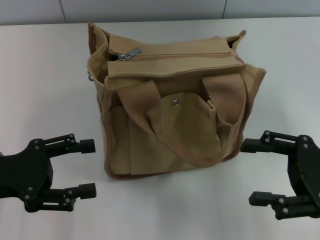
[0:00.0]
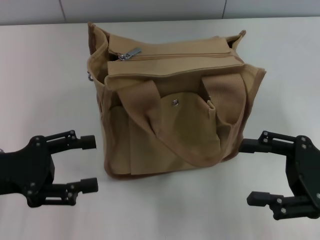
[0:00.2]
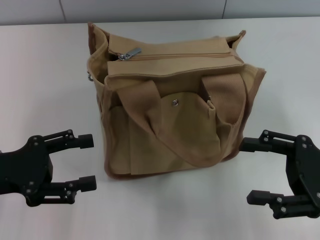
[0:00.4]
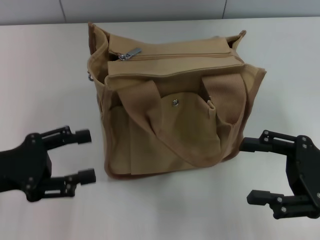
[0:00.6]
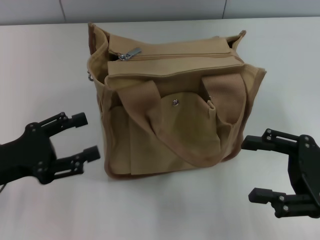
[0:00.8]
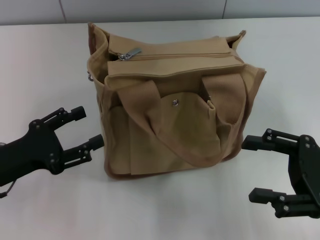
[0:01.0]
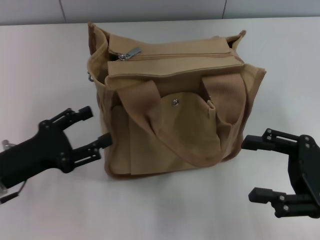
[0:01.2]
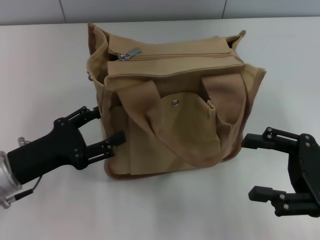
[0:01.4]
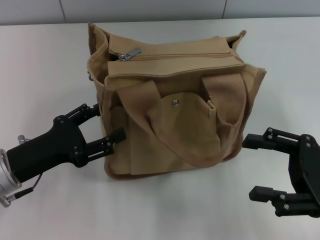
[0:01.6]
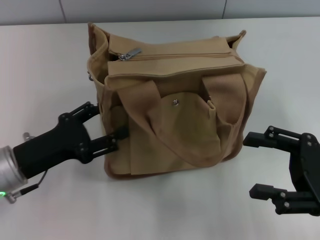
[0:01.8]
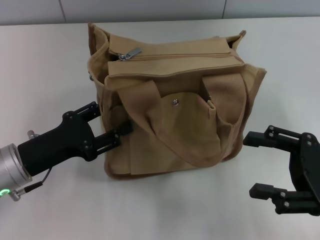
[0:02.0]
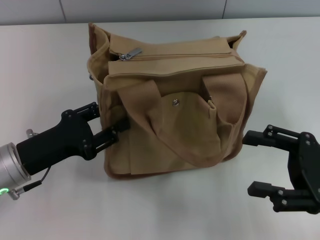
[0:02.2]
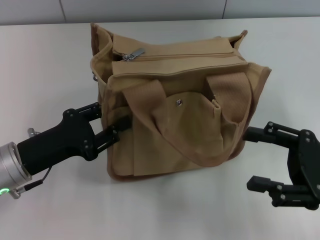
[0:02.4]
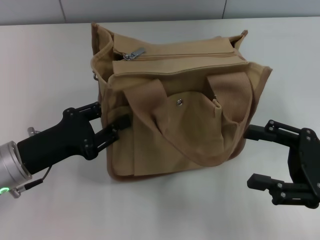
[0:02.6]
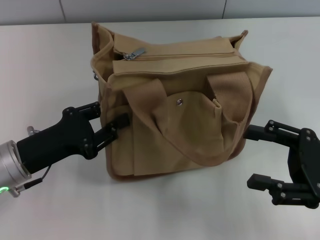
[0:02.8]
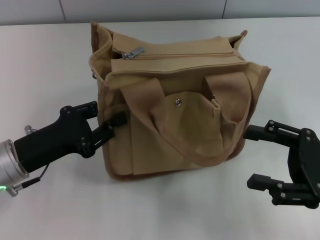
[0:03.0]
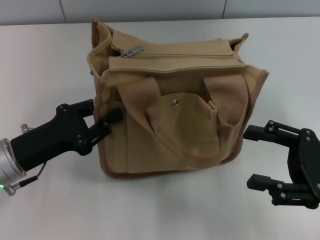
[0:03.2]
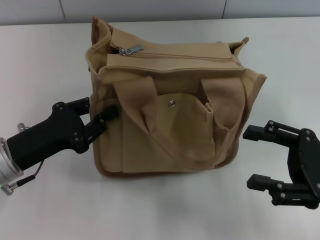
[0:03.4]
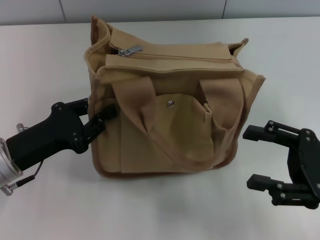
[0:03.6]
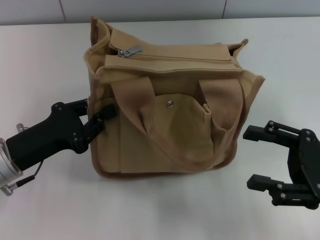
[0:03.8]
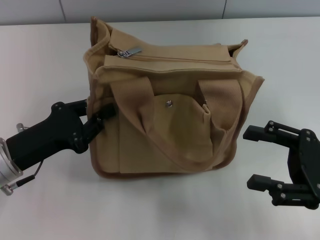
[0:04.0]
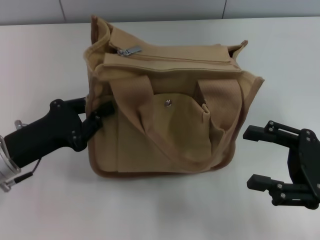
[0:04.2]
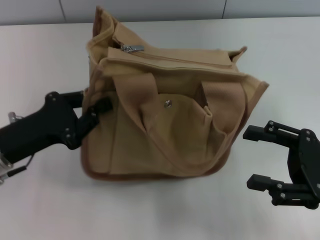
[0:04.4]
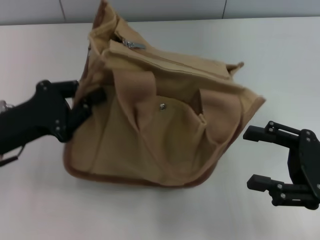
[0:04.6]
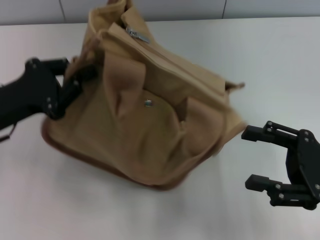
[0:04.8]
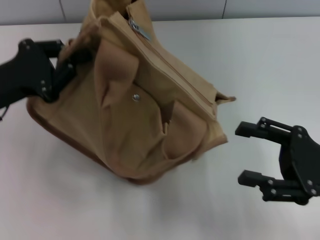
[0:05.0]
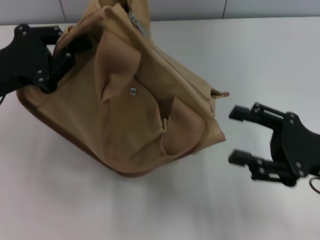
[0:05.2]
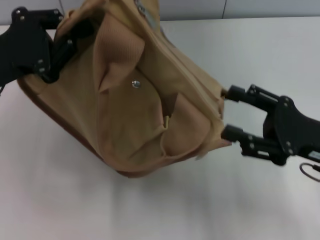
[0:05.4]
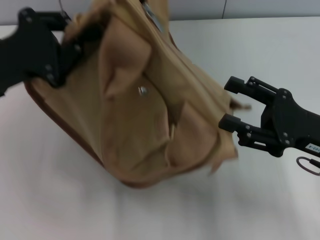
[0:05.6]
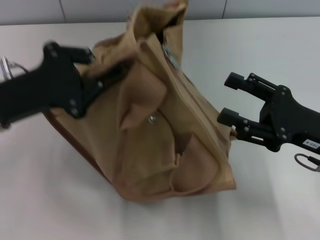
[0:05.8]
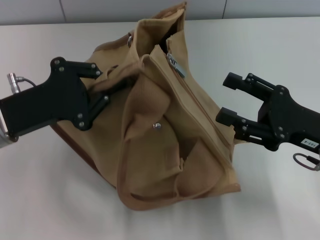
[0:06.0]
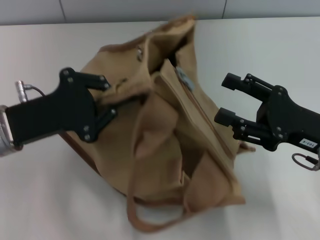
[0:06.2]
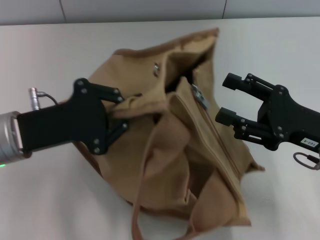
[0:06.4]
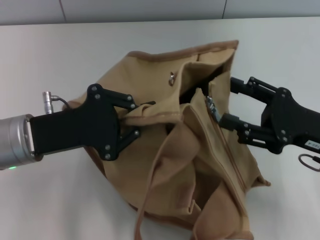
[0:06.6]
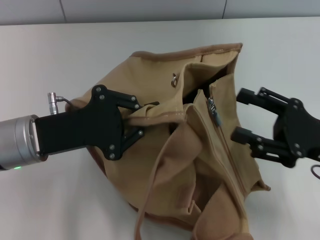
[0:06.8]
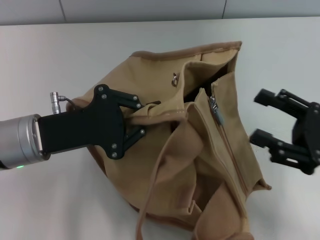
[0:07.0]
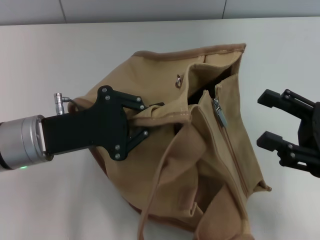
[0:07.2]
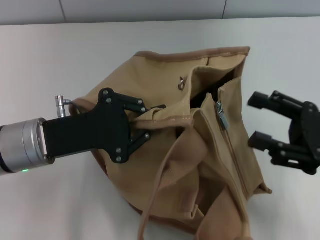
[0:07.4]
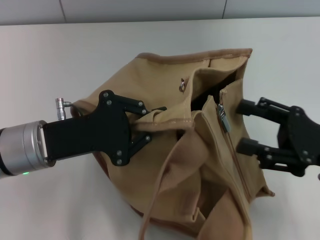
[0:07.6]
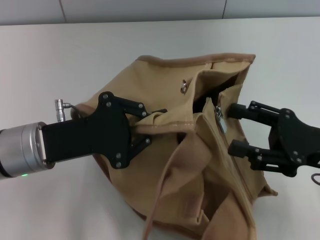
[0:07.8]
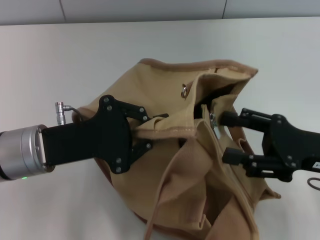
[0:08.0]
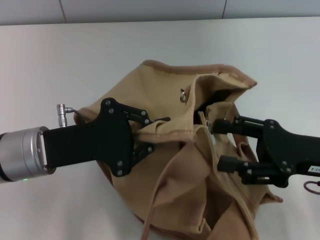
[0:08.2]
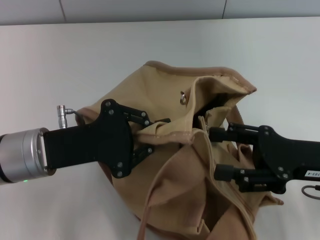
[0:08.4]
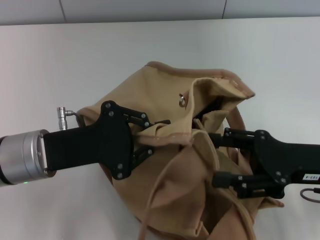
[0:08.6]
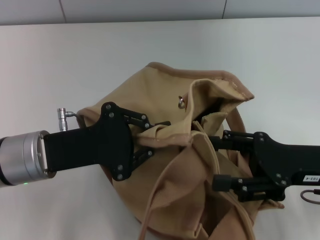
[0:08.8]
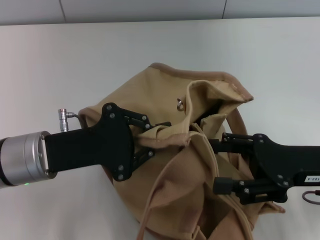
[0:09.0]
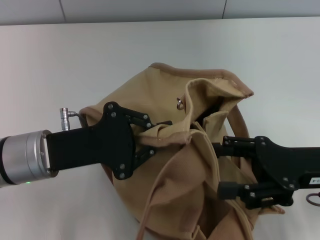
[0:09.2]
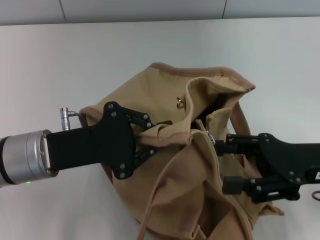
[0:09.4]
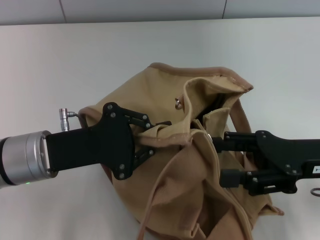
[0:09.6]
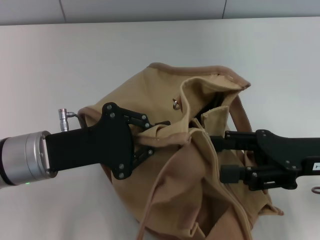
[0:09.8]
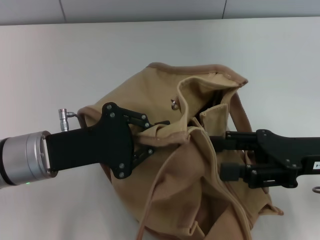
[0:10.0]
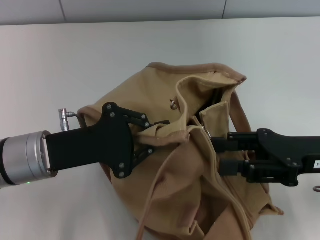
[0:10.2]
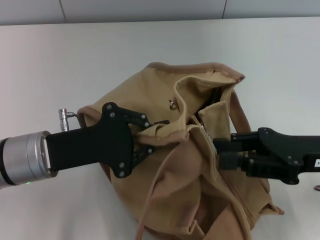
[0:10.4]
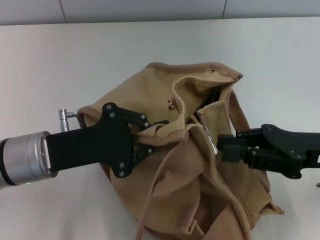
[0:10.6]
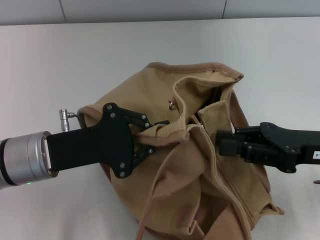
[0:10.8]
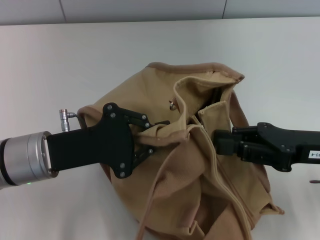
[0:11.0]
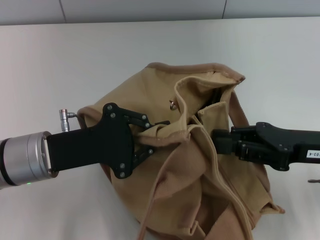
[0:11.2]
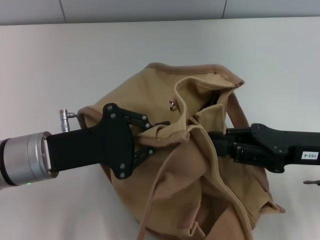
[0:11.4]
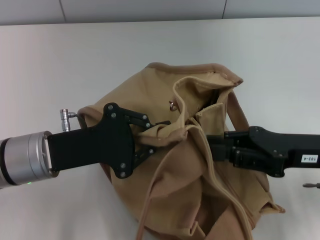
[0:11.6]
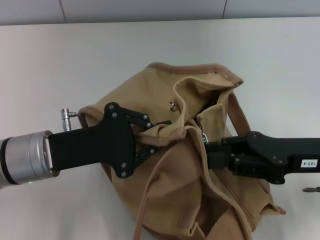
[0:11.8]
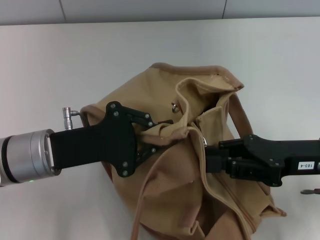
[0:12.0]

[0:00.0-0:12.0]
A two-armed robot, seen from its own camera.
0:00.0 to 0:01.6: The left gripper moves approximately 5 cm.
0:01.6 to 0:03.0: The left gripper closes.
0:03.0 to 0:04.4: The grippers make only small movements.
0:04.4 to 0:06.0: The right gripper changes place by approximately 5 cm.
0:09.0 to 0:10.4: There are only small adjustments of the grippers.
0:10.4 to 0:12.0: The right gripper closes up.

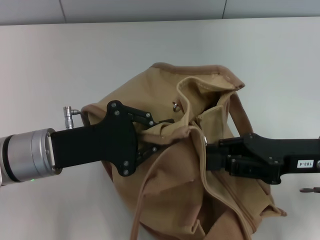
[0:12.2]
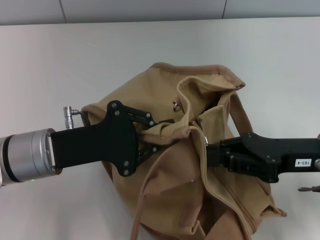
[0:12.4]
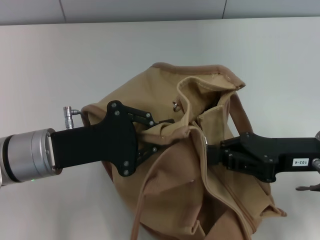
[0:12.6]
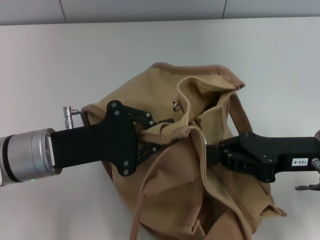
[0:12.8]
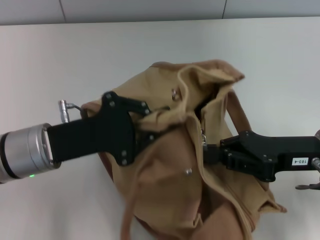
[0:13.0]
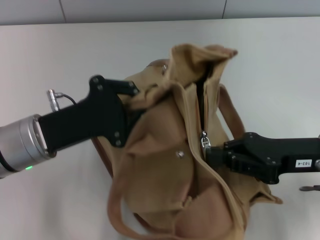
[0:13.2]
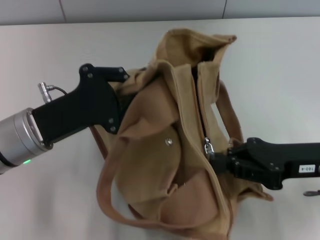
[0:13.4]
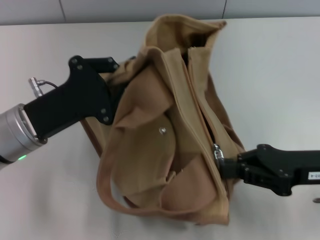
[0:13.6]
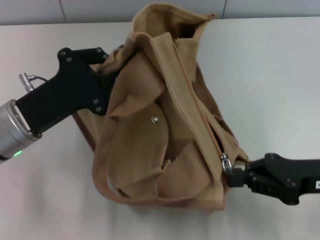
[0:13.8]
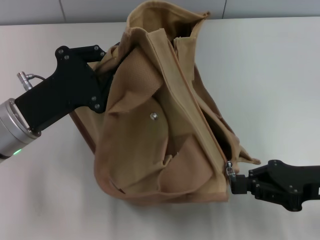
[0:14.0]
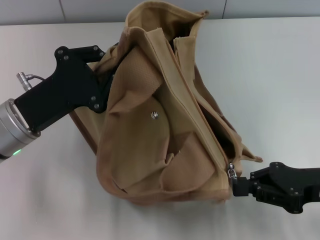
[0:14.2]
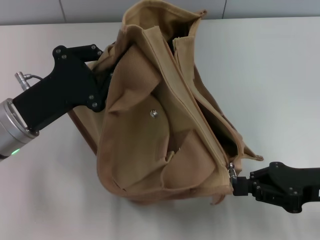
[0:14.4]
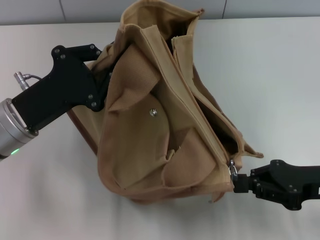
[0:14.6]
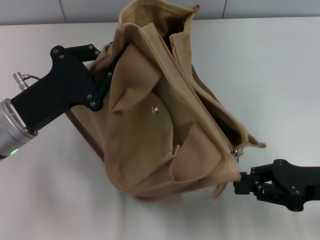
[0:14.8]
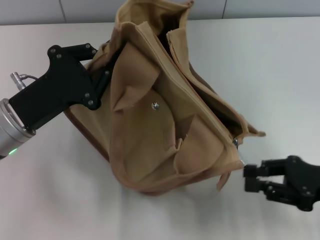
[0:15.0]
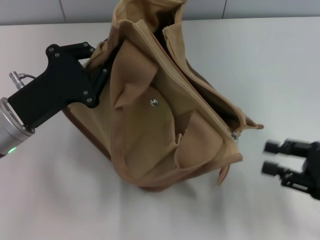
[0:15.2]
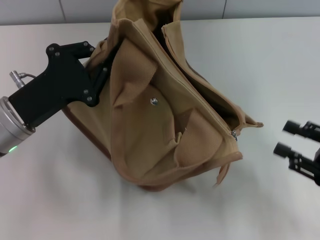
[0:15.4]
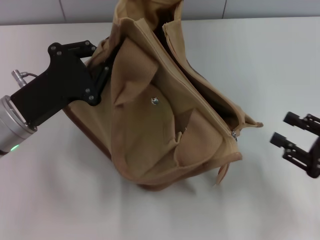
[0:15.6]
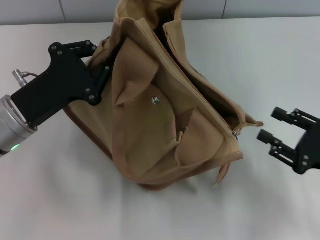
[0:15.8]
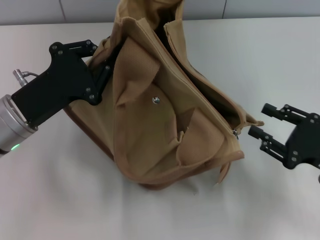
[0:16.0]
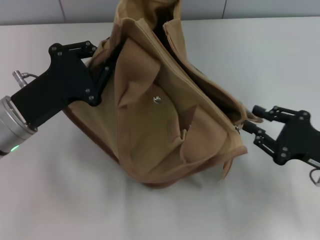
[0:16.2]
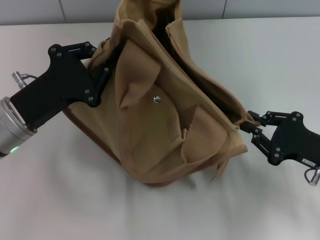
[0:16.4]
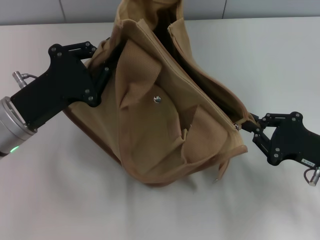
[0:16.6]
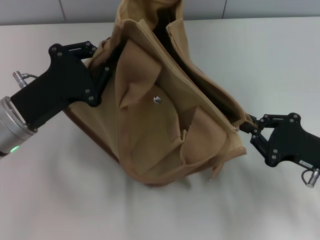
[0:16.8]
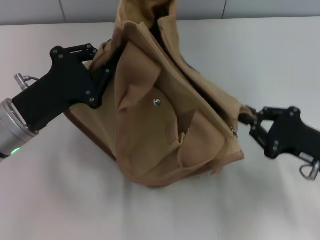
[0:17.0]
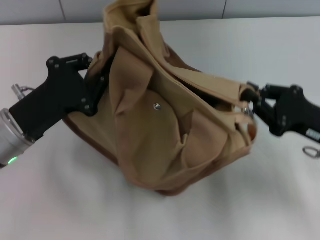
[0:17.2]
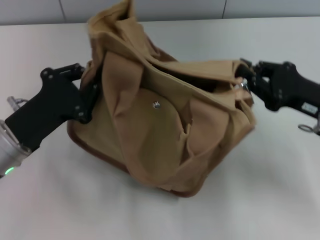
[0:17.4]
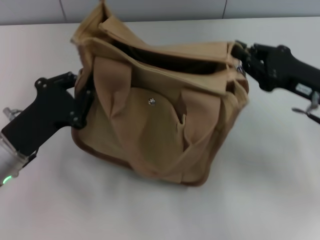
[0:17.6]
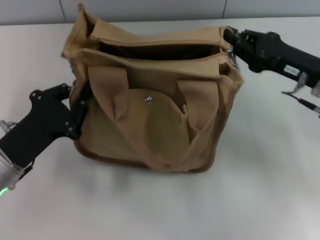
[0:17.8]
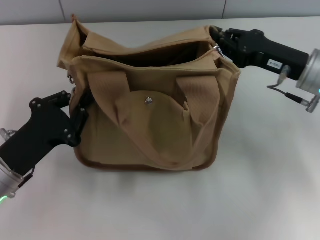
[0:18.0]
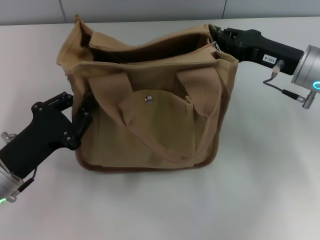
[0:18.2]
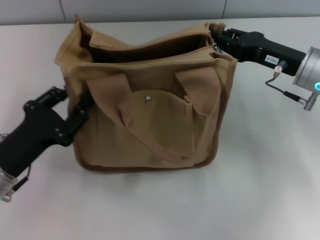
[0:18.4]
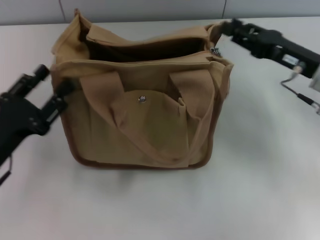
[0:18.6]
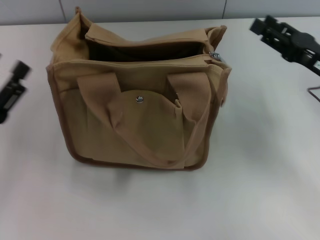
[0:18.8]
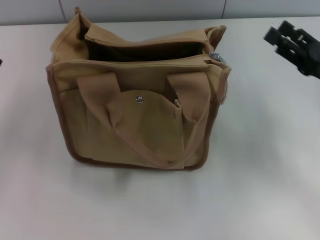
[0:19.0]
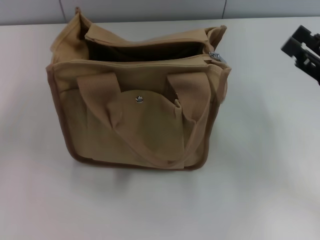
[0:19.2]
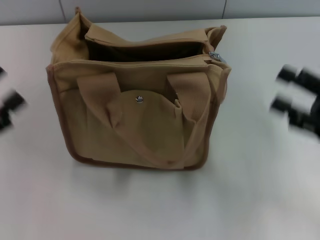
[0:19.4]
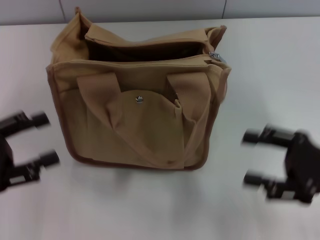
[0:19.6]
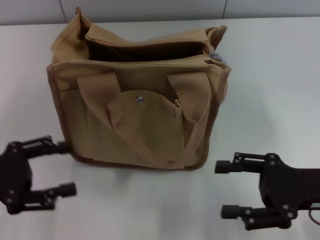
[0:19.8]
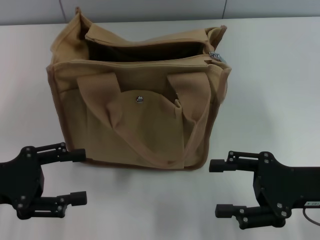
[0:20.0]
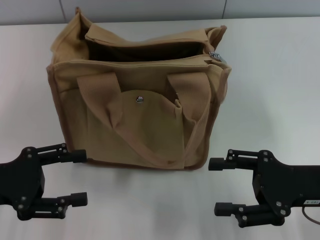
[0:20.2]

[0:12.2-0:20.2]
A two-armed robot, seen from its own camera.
Step, 0:12.2 to 0:15.0: Pull open the zipper with your right hand.
Step, 0:15.2 to 0:18.6: Grab the bag with your left hand.
0:13.8 to 0:15.4: The right gripper is displaced to the right by about 5 cm, and opens its fingers.
0:15.4 to 0:17.0: The right gripper moves to the left, about 5 cm, and closes its fingers.
0:17.0 to 0:18.6: The left gripper shifts about 5 cm backward, and opens its fingers, while the right gripper shifts approximately 10 cm forward and upward.
0:18.6 to 0:20.2: The right gripper travels backward by some 10 cm, and opens its fingers, while the left gripper changes place by roughly 5 cm, and opens.

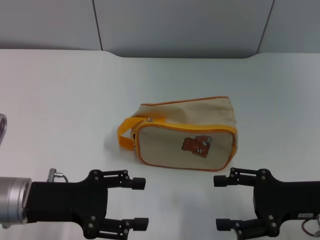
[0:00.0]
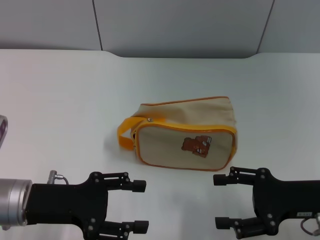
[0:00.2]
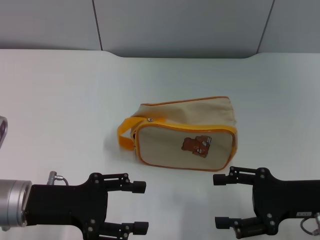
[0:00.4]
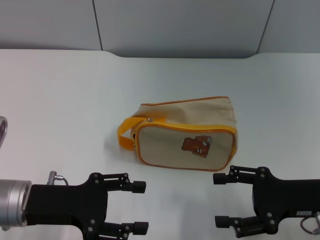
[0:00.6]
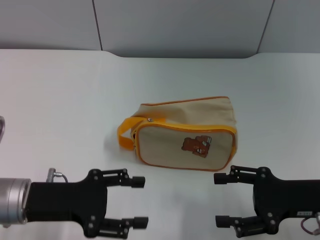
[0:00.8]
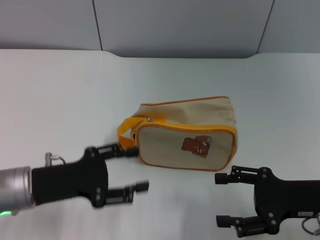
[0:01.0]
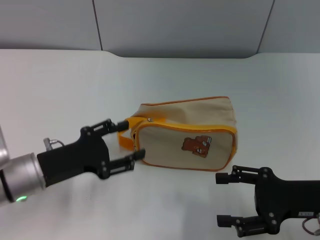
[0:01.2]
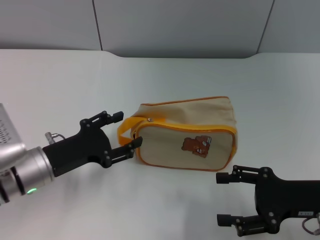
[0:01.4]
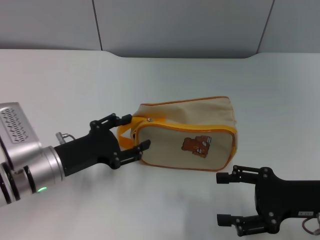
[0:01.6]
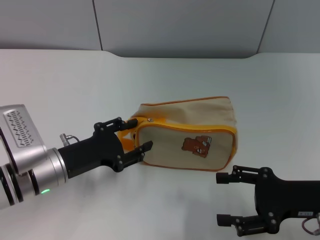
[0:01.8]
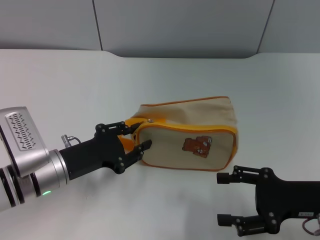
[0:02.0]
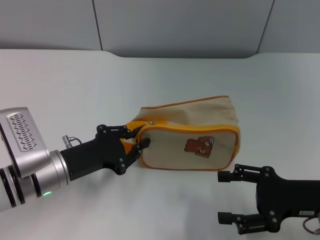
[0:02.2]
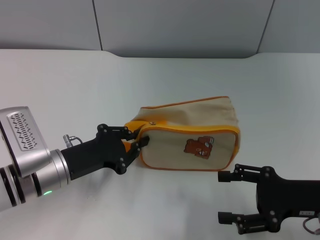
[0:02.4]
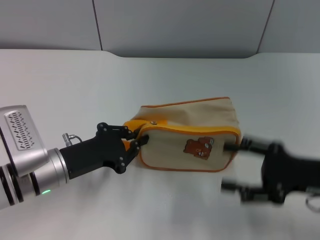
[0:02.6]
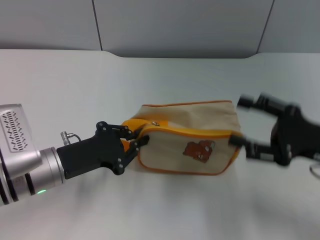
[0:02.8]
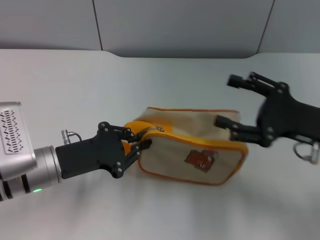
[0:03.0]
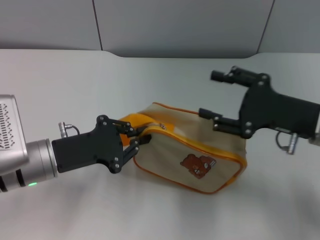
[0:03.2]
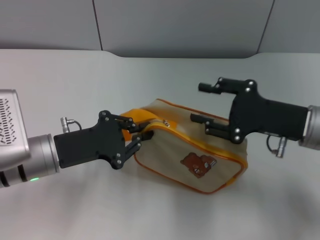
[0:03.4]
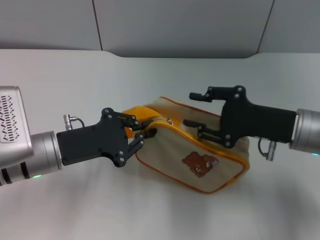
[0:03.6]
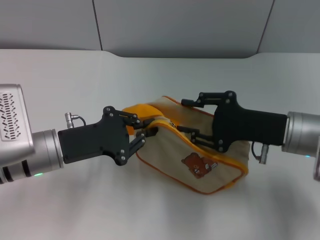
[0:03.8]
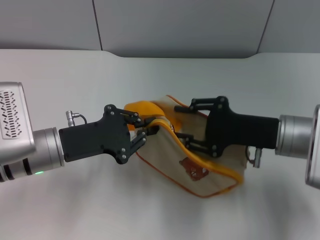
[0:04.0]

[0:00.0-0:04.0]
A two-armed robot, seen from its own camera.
Step, 0:00.0 to 0:03.2: Pick up the bag with left gripper.
0:00.0 to 0:01.4: The left gripper shifts by about 5 cm.
0:01.4 to 0:02.6: The left gripper closes its fingers.
0:02.6 to 0:04.0: The right gripper moves to the left and forward, about 10 cm, and closes up.
